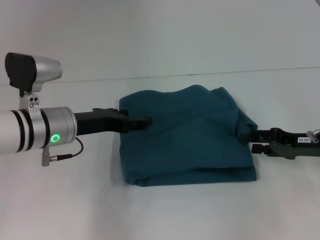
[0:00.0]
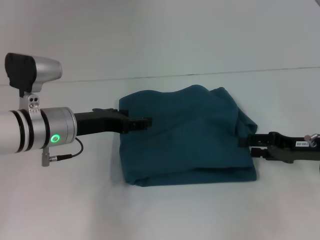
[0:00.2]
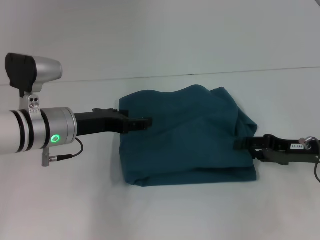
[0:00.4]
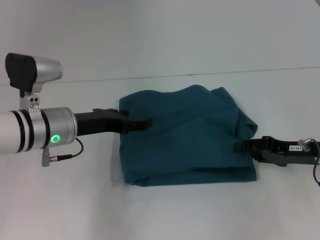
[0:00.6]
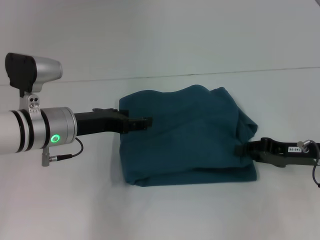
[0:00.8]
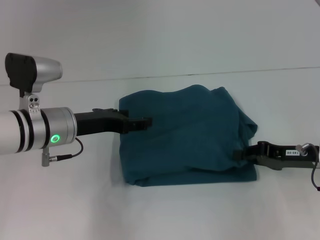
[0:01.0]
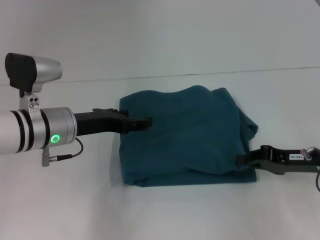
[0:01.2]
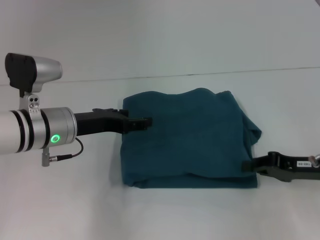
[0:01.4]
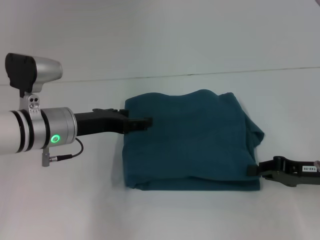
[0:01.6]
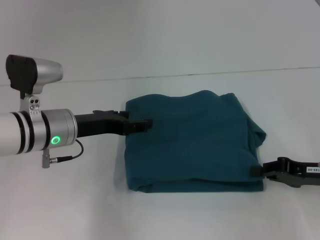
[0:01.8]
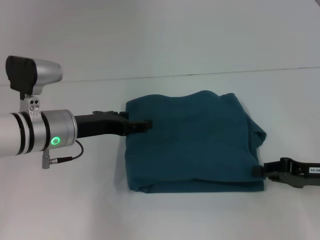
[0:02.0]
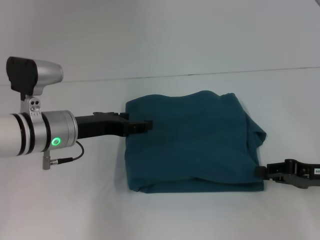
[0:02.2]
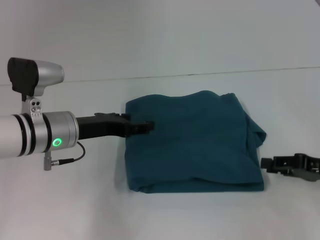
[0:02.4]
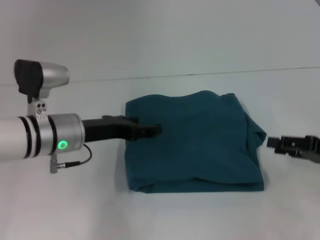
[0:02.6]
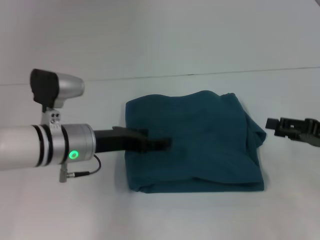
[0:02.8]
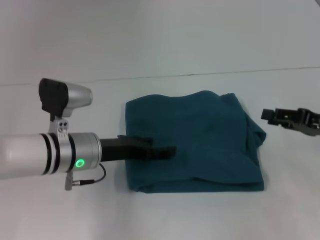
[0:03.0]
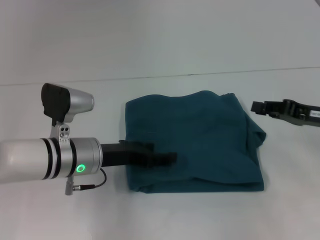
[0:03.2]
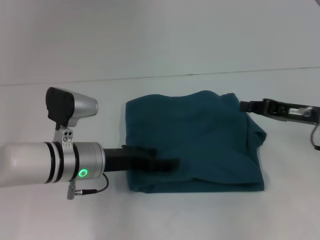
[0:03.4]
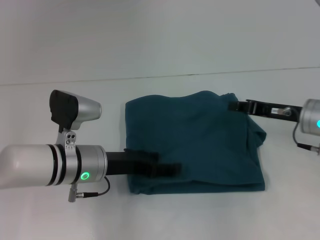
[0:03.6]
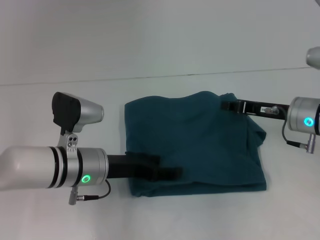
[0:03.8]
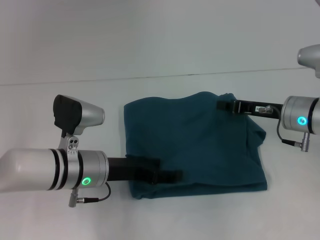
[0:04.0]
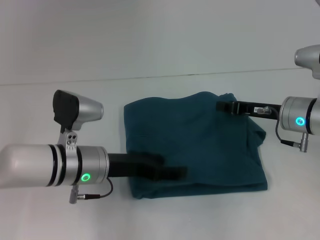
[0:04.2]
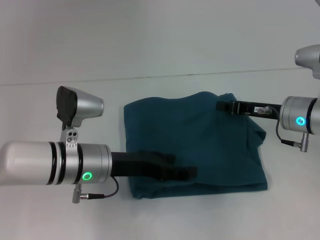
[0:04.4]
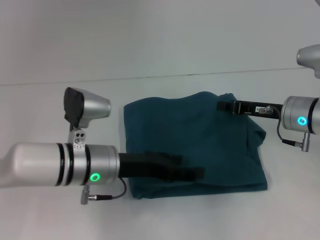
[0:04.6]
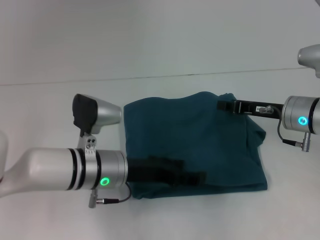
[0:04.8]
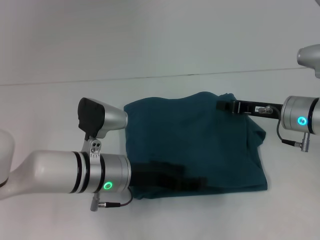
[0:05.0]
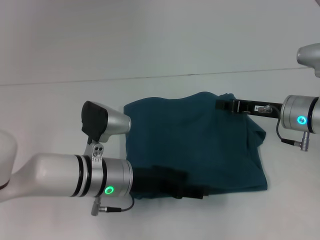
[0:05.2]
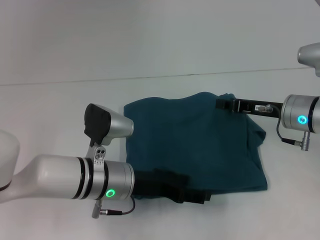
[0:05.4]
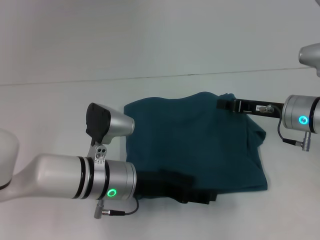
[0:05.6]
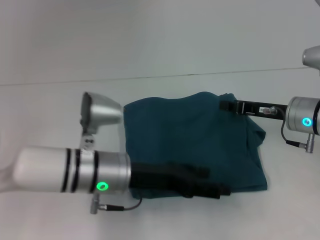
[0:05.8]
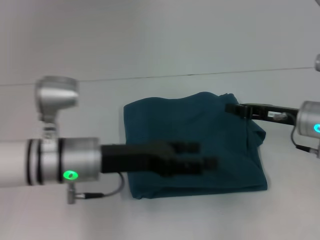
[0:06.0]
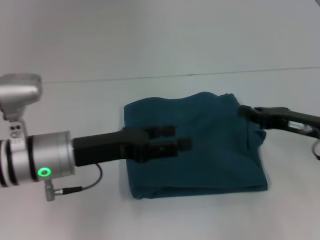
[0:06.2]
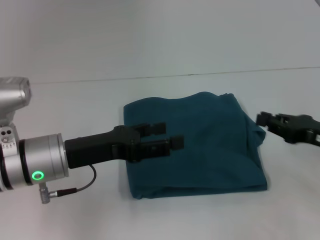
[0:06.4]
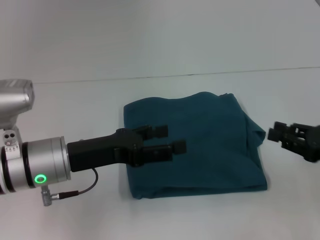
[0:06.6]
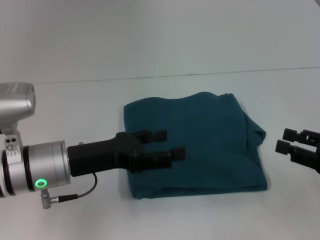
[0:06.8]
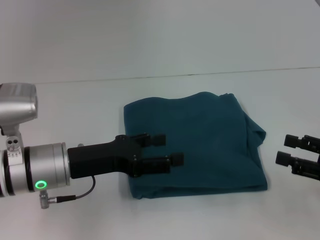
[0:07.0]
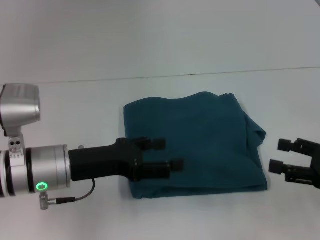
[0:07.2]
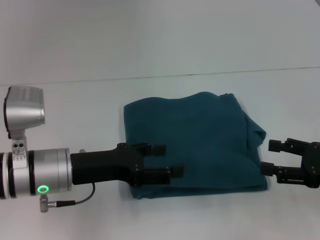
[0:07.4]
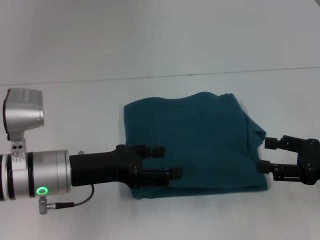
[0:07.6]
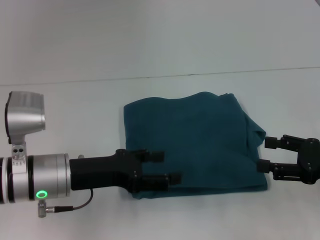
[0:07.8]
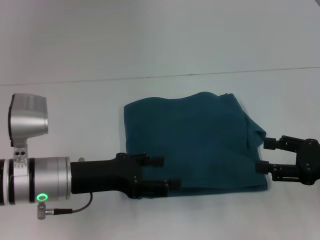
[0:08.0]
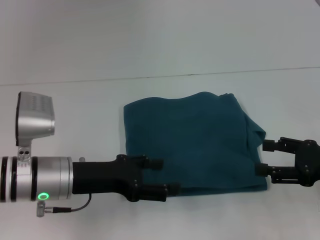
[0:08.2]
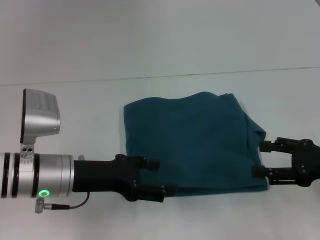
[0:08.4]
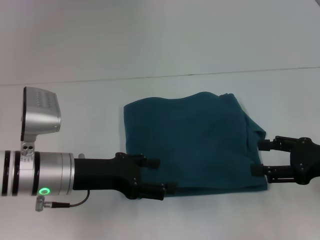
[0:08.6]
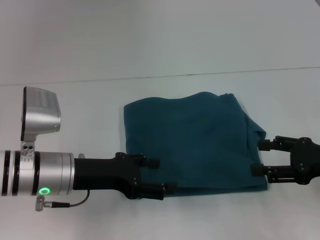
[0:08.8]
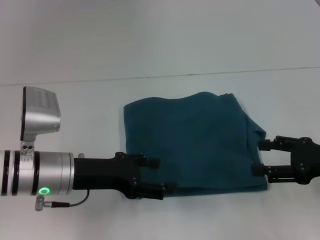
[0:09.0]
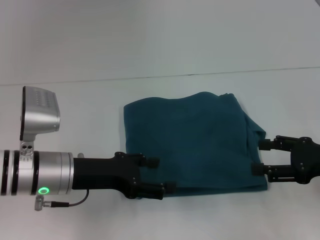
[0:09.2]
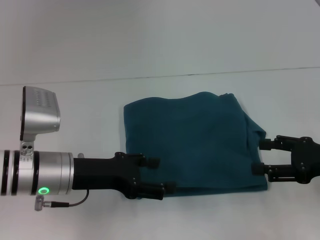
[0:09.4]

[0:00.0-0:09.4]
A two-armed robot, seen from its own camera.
0:00.0 to 0:01.6: The right gripper closes up.
0:01.6 to 0:03.2: The right gripper moves some 5 cm, and opens, while the left gripper moves about 5 cm.
0:03.2 to 0:04.8: The right gripper shifts roughly 5 cm to the left, and closes.
0:04.8 to 0:06.2: The right gripper changes place by approximately 5 cm. The left gripper shifts about 10 cm to the left and upward.
0:06.2 to 0:07.8: The right gripper is displaced backward by some 5 cm, and opens its fingers.
0:07.8 to 0:09.4: The grippers move only a little.
